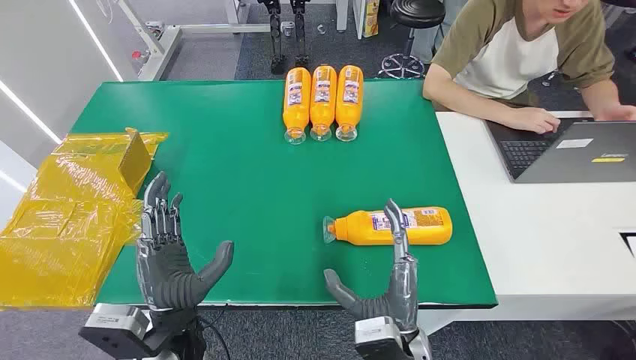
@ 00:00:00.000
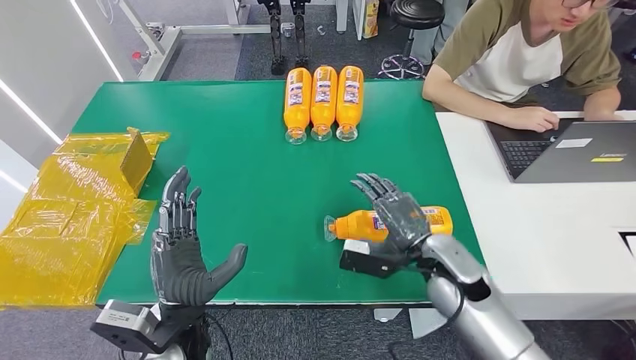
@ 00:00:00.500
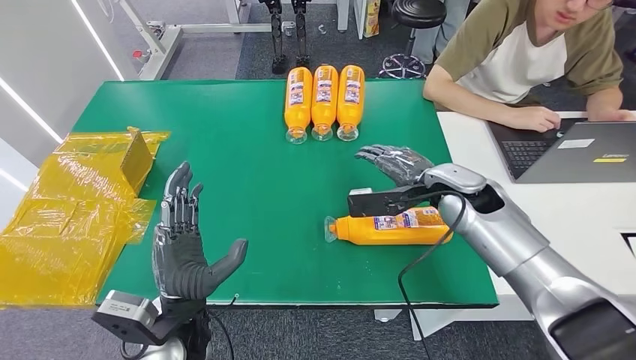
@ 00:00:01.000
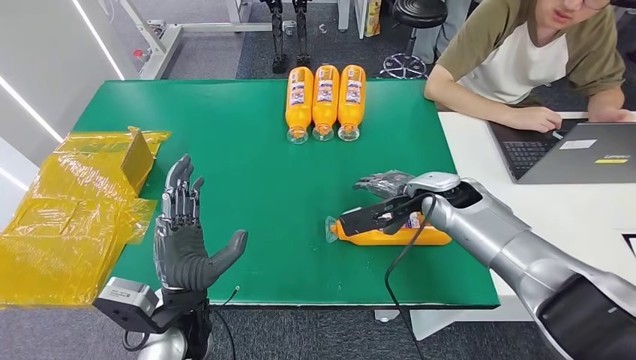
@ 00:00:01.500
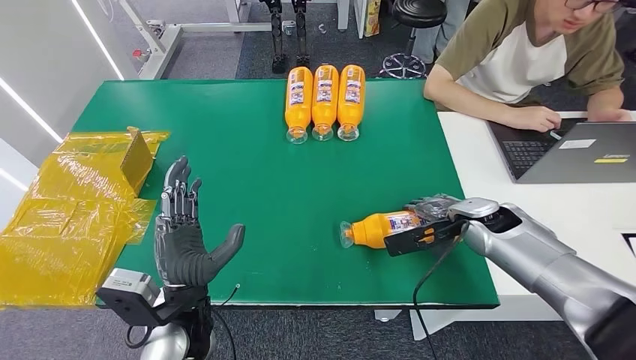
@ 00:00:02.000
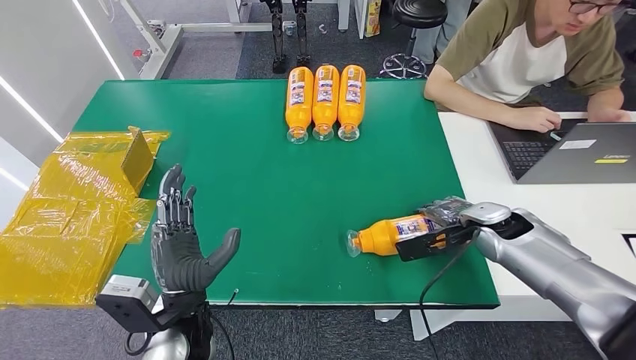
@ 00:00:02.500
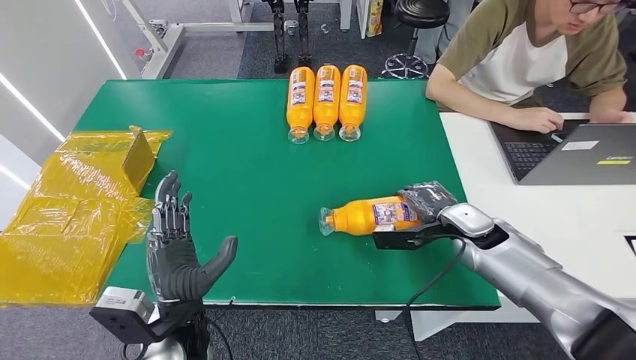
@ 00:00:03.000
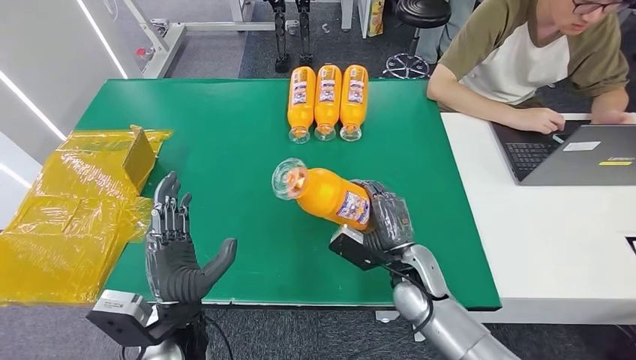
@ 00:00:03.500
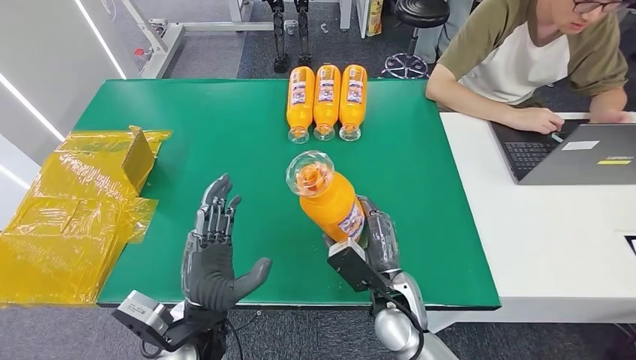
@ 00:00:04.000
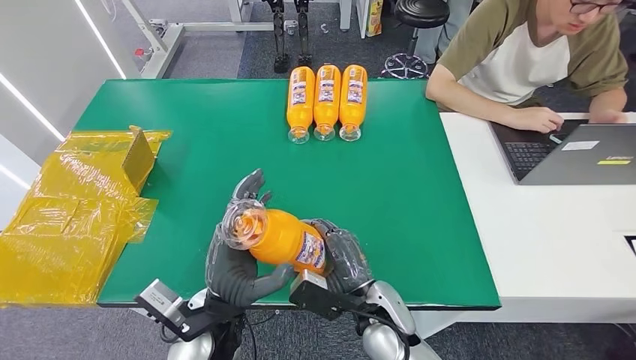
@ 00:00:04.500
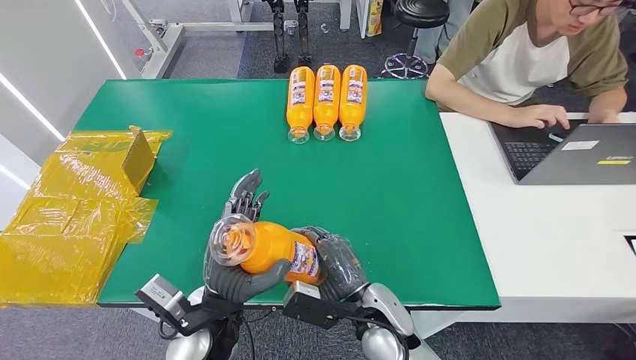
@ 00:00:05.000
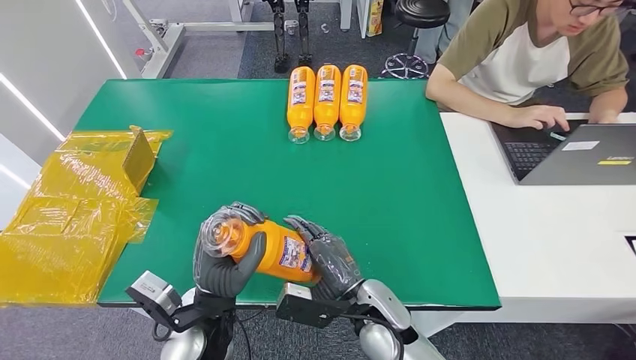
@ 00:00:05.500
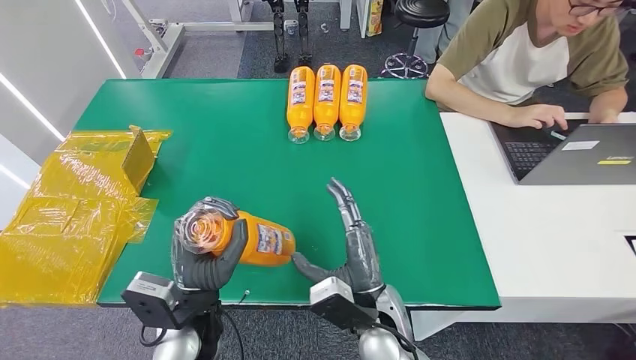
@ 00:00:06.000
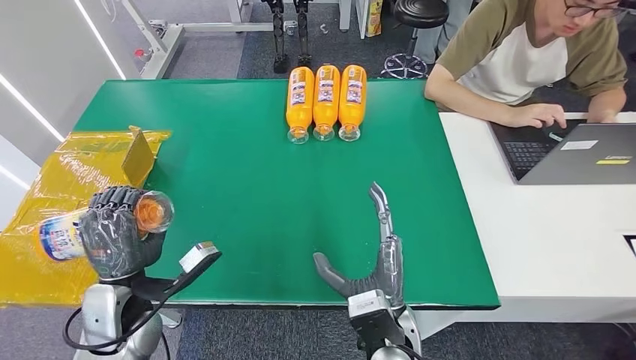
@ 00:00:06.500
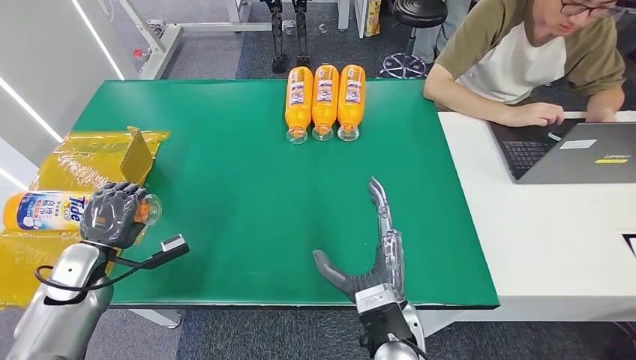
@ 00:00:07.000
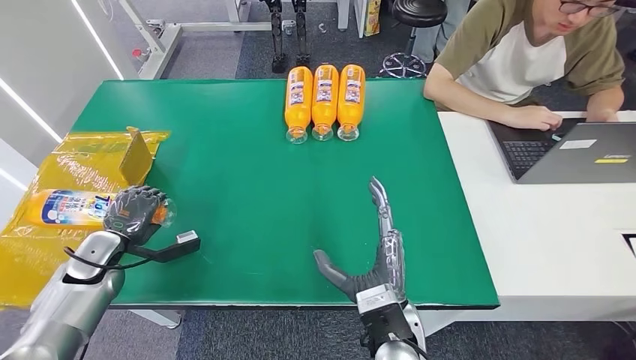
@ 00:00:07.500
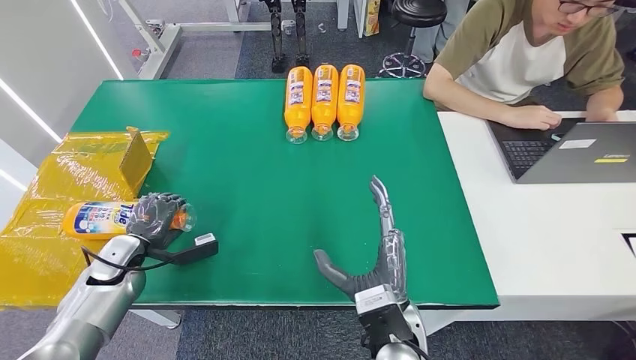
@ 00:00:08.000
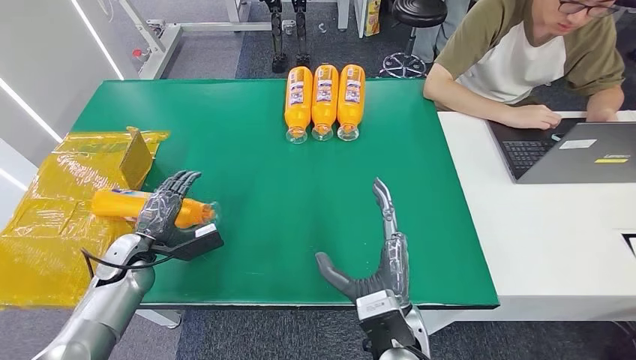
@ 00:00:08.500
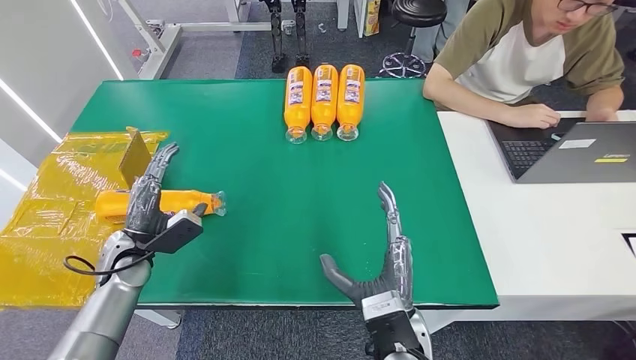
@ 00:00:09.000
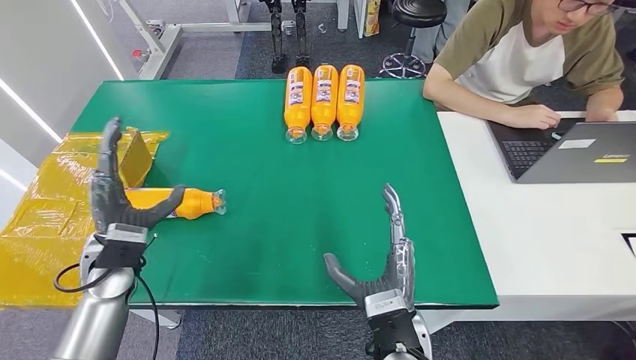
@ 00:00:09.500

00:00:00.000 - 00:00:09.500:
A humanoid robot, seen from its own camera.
Step, 00:00:00.000 - 00:00:03.500: Pick up the bottle from the table.
Step, 00:00:04.500 - 00:00:09.500: Turn the bottle to the front side.
00:00:07.500 - 00:00:09.500: The left hand moves to the right and upward, approximately 15 cm.
